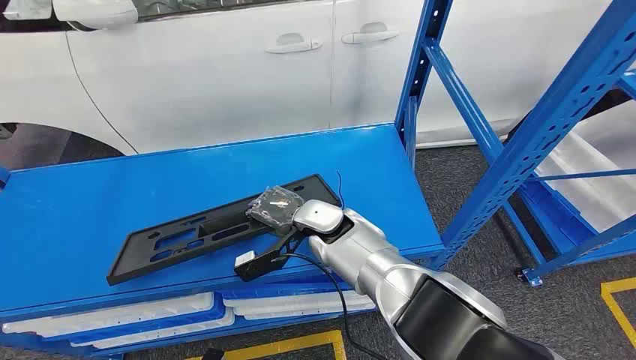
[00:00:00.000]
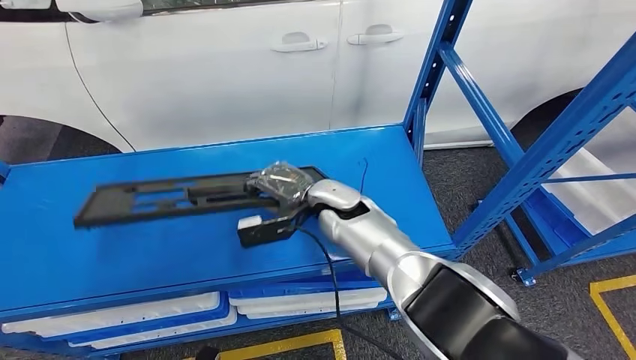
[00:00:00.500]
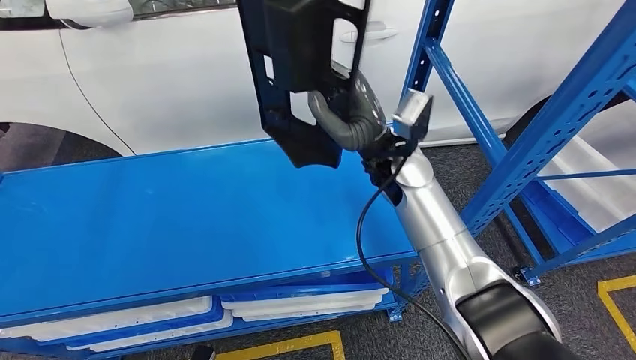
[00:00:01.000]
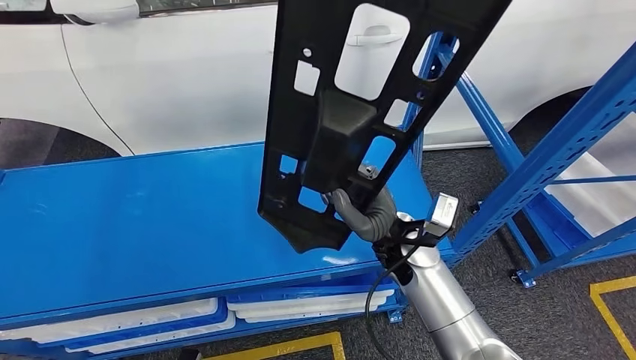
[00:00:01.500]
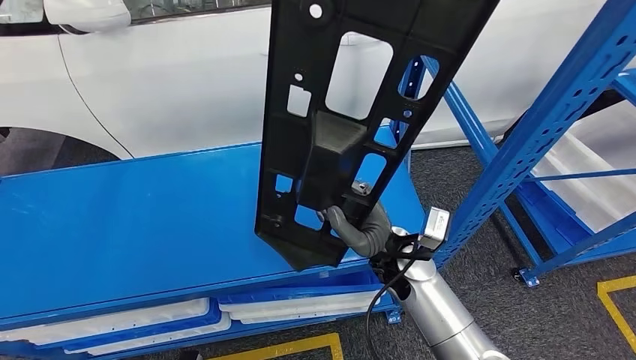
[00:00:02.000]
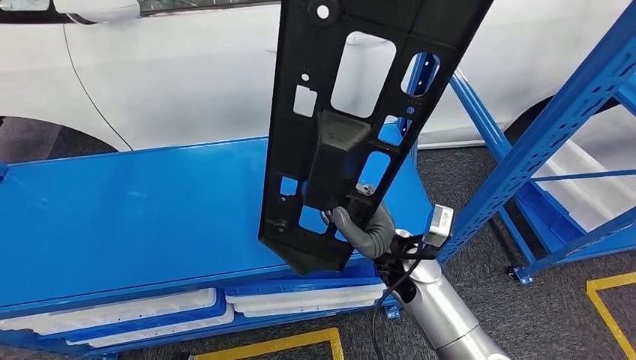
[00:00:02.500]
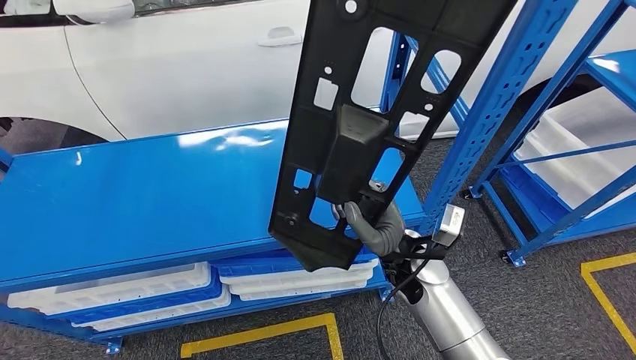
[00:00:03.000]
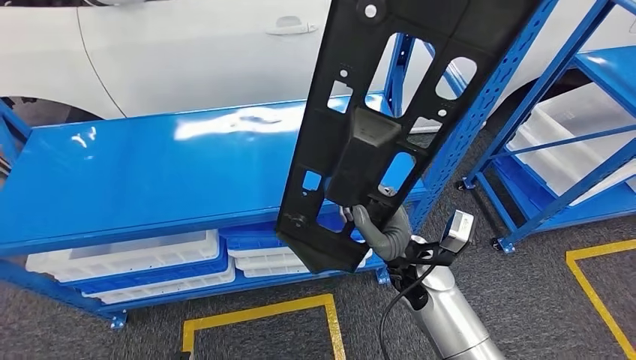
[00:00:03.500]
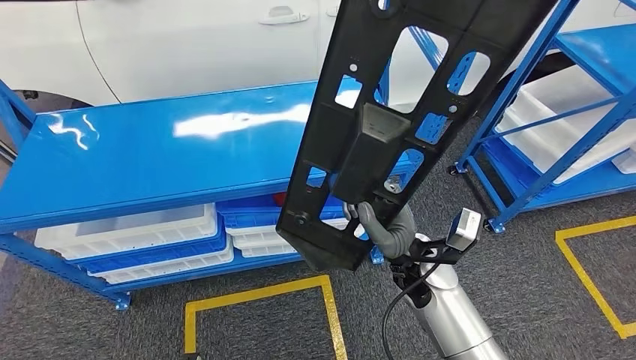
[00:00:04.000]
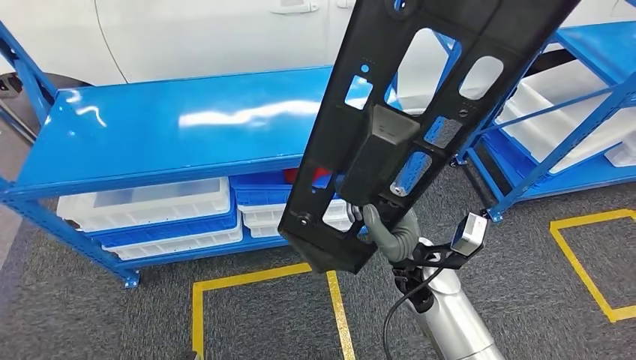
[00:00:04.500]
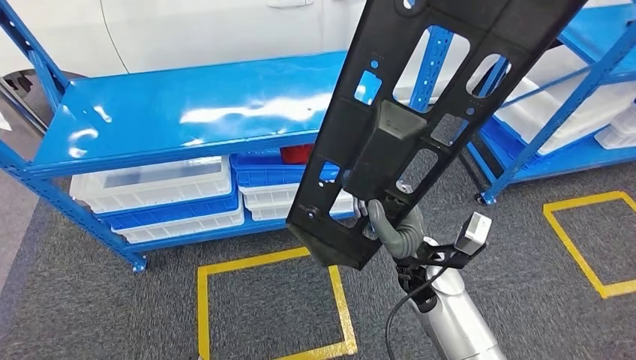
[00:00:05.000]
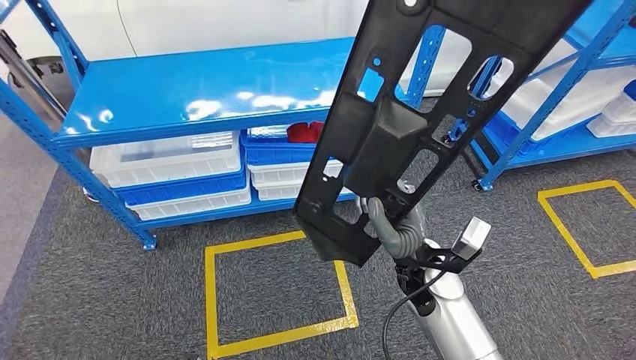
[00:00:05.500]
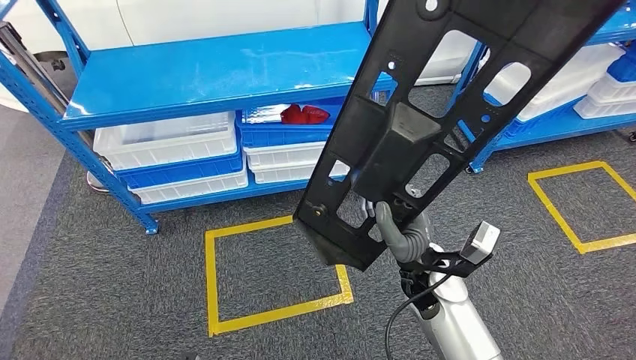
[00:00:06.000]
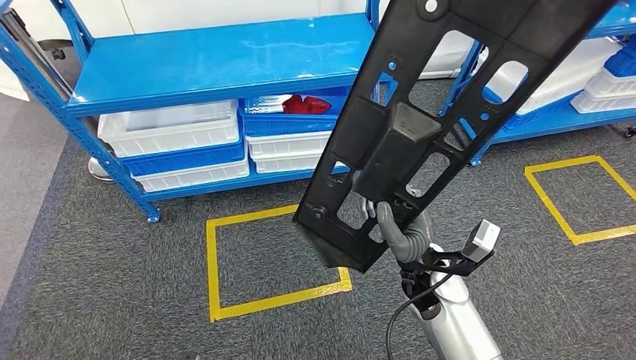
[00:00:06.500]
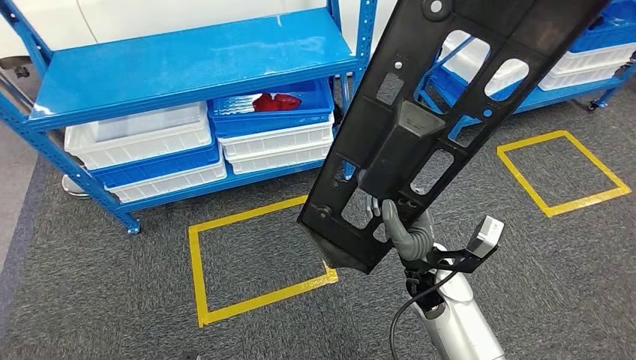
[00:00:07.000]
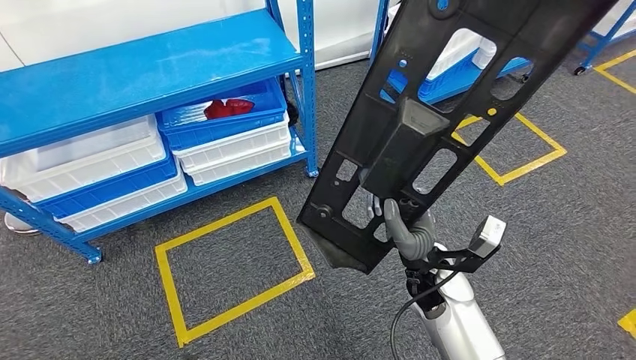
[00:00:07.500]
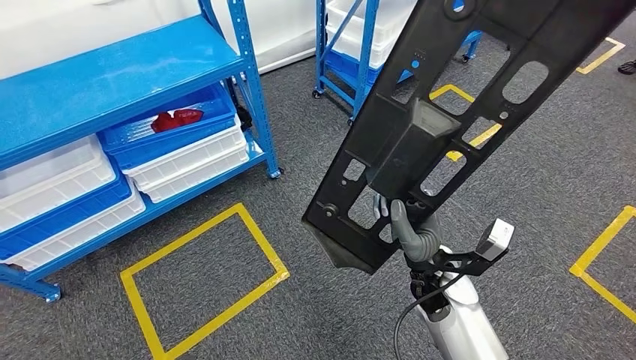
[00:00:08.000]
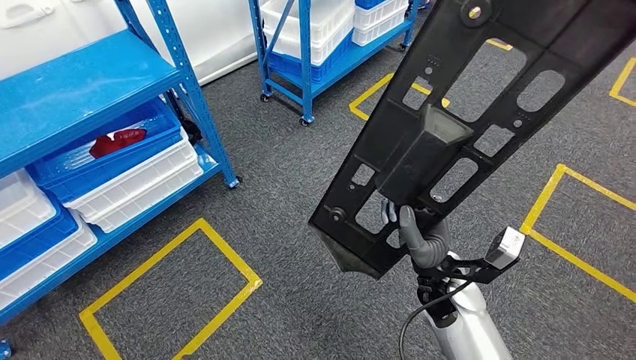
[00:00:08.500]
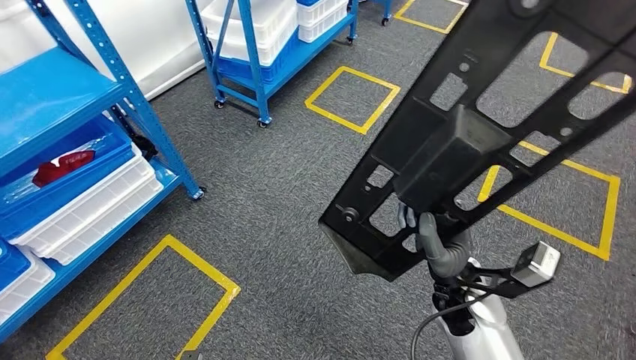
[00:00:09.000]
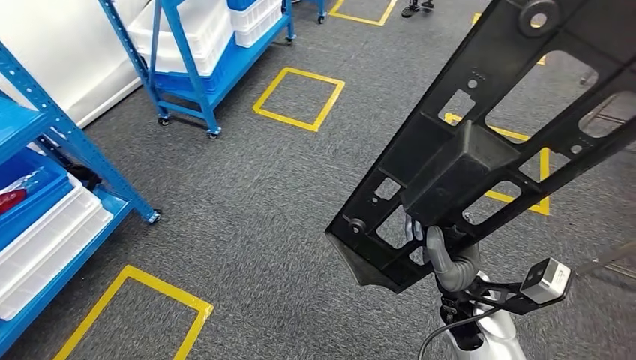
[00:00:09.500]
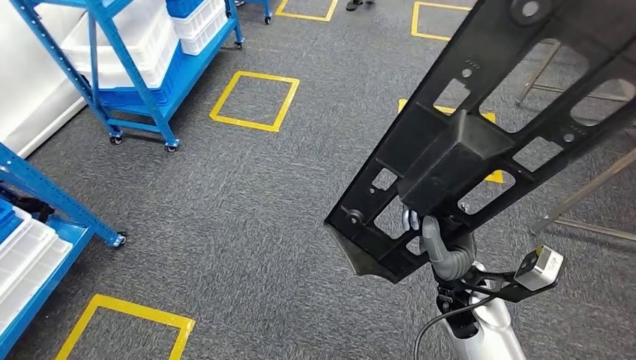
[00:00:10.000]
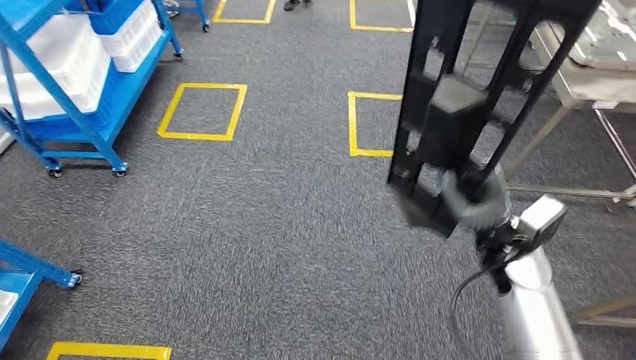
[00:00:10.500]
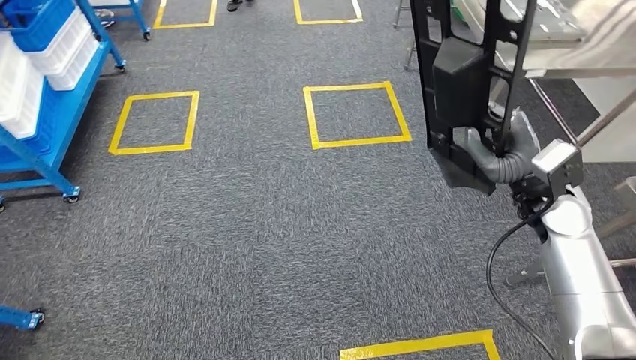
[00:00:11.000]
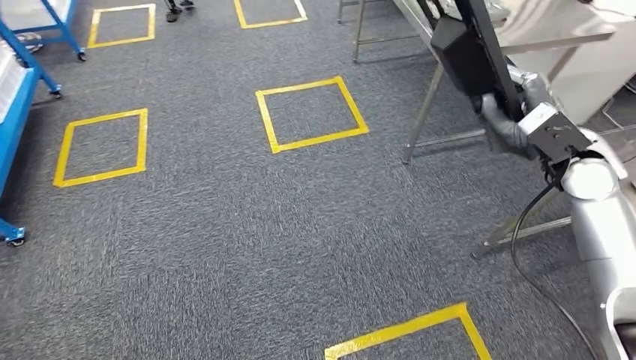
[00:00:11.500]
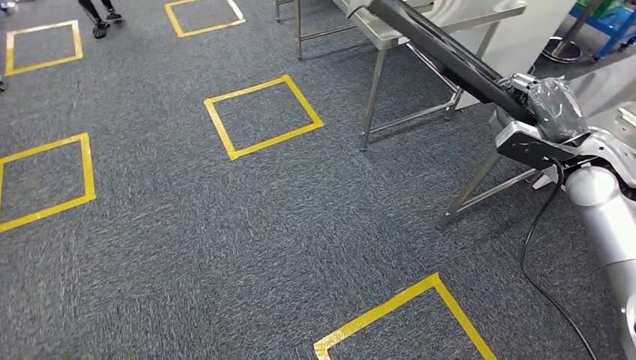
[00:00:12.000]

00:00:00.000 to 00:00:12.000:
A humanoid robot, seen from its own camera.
Step, 00:00:00.000 to 00:00:03.500: Pick up the large material from the shelf.

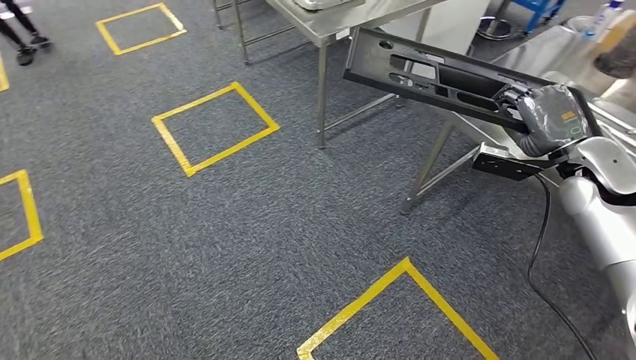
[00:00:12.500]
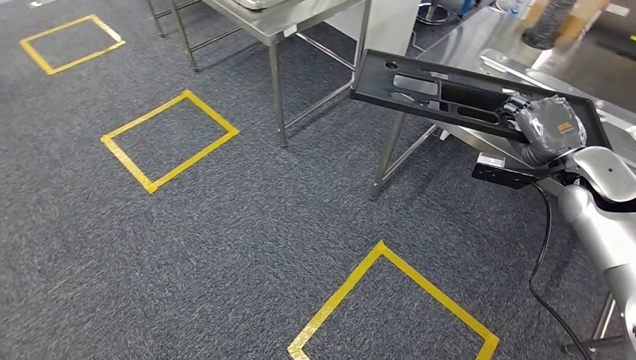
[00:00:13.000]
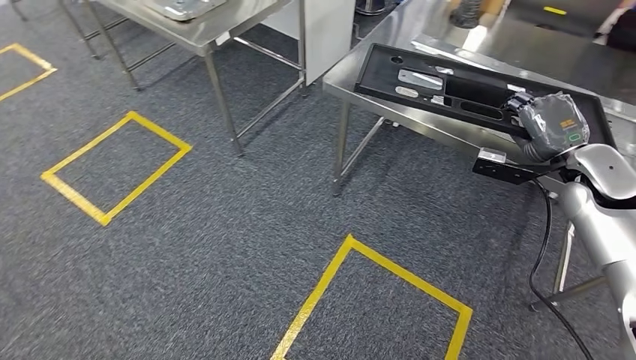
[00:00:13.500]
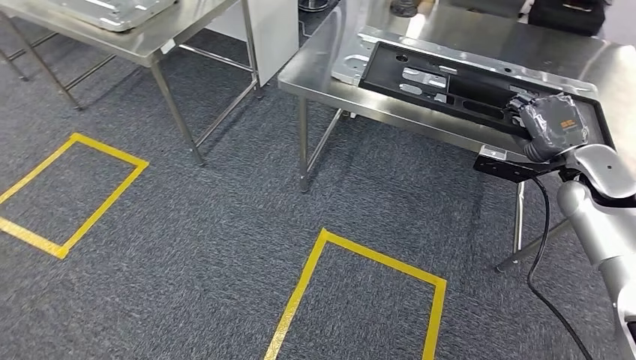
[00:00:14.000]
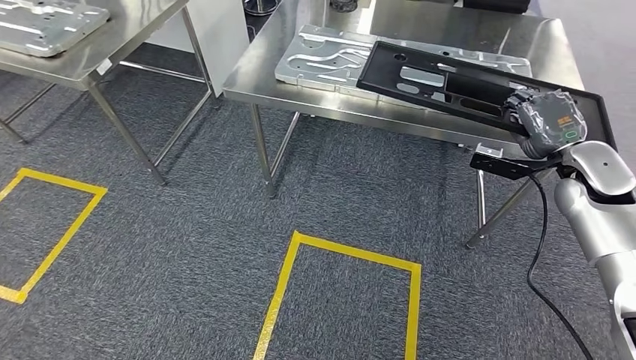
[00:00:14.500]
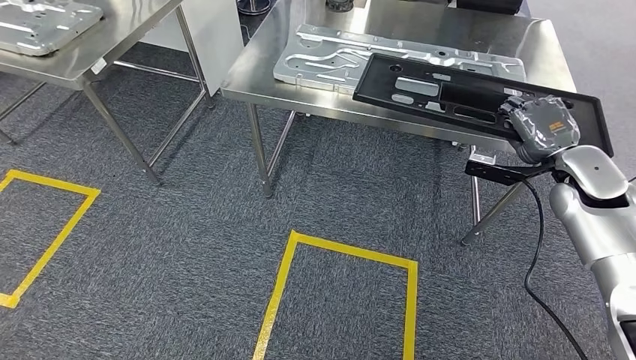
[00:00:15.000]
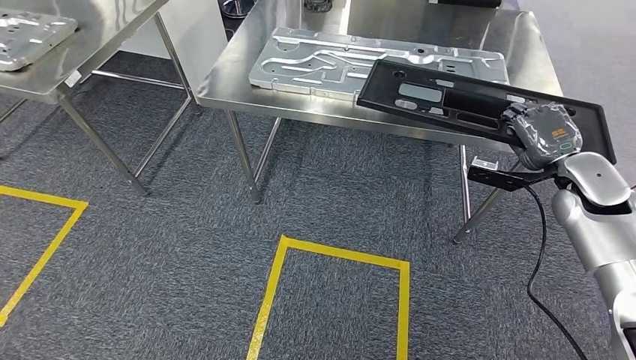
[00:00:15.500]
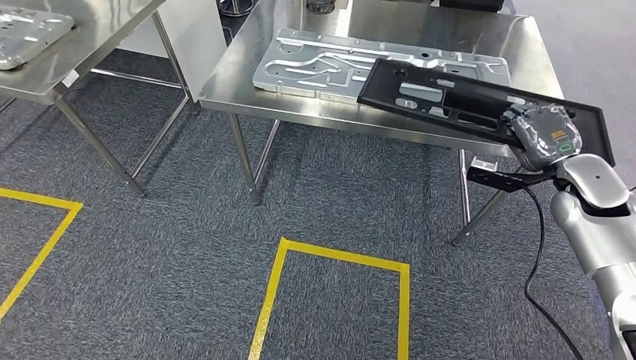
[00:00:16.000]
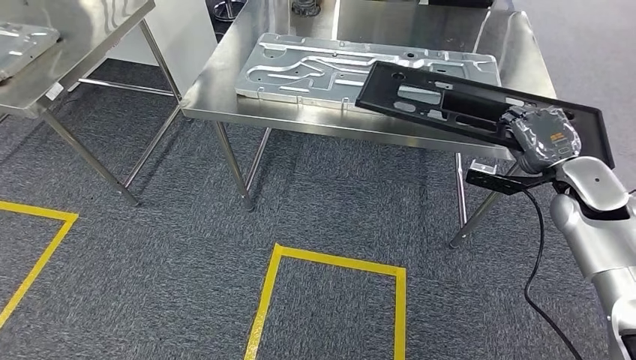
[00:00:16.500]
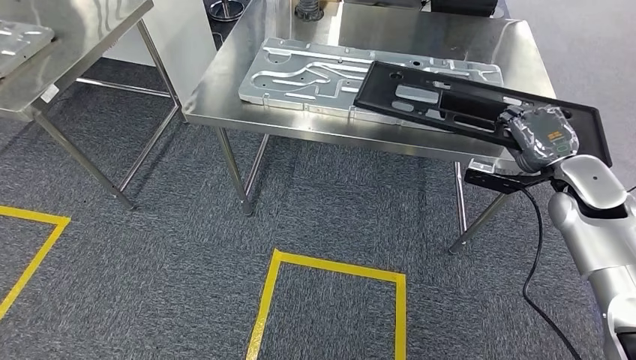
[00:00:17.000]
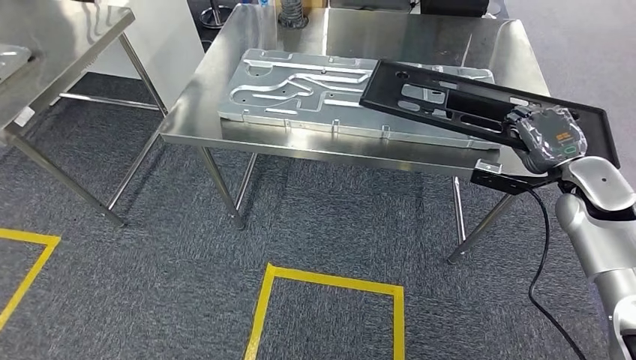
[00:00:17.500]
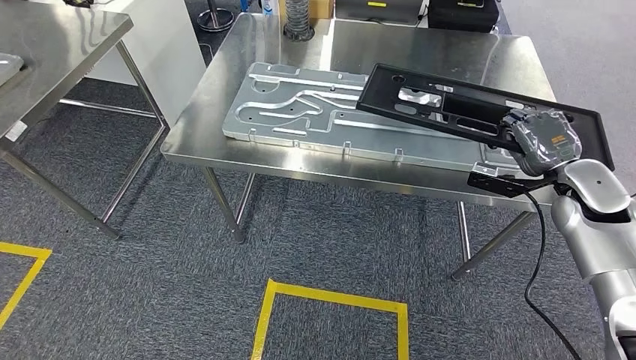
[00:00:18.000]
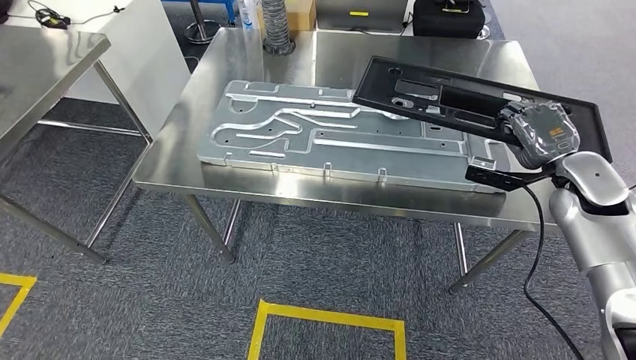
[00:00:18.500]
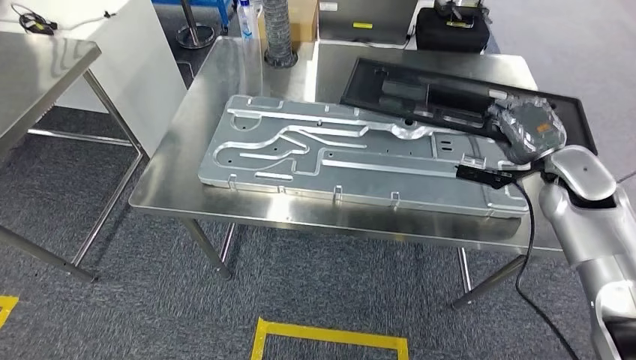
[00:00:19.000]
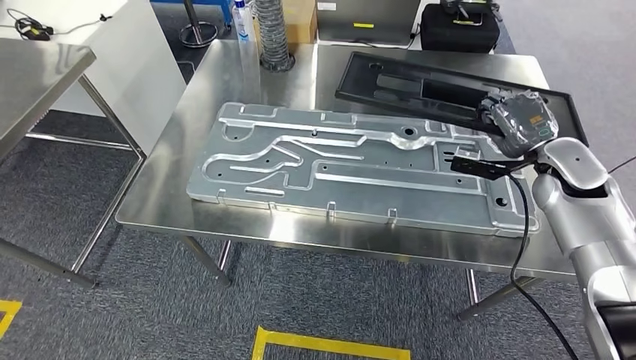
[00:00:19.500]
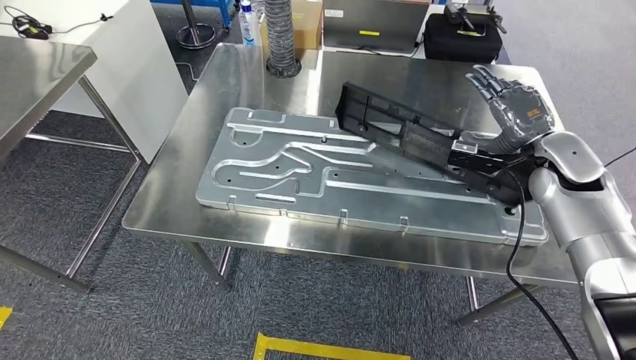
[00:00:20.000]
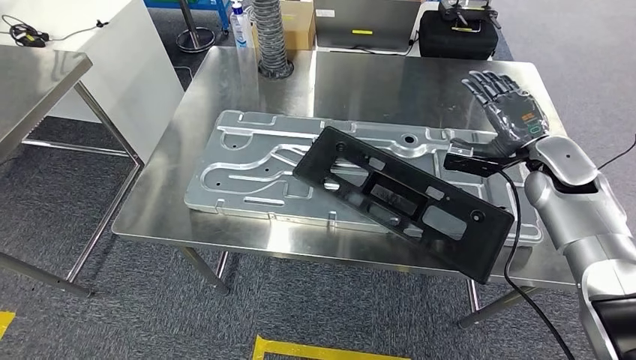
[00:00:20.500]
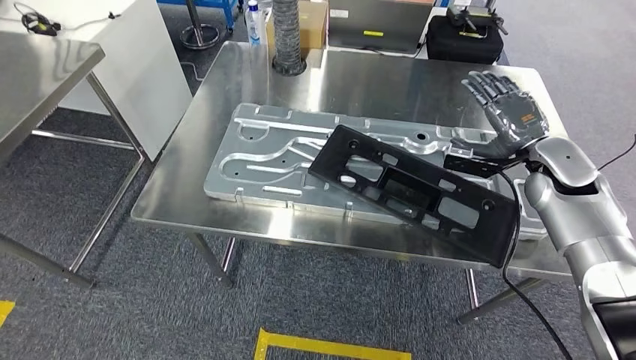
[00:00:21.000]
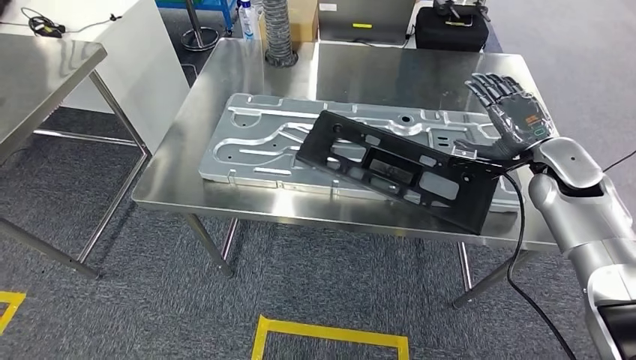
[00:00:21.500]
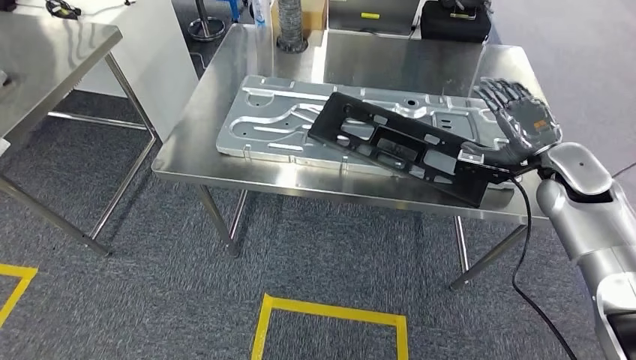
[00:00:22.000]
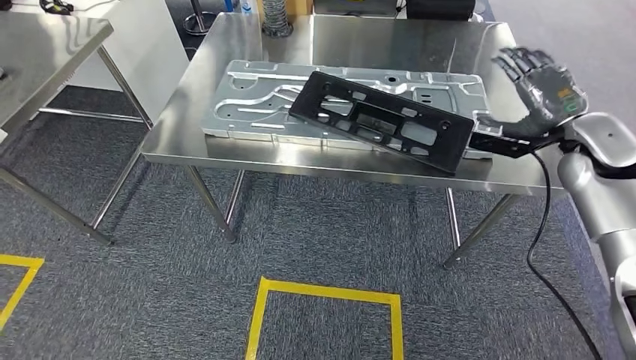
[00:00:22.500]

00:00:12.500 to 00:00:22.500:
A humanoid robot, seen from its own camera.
Step, 00:00:12.500 to 00:00:15.000: Move the large material to the workbench.
Step, 00:00:16.000 to 00:00:22.000: Insert the large material into the corresponding slot on the workbench.
